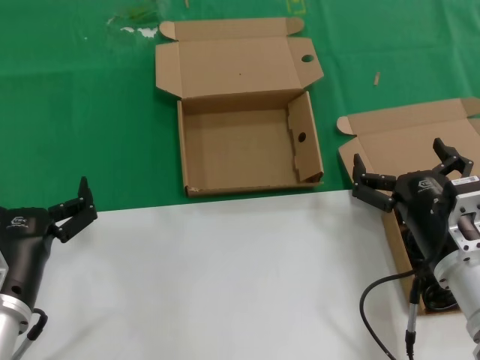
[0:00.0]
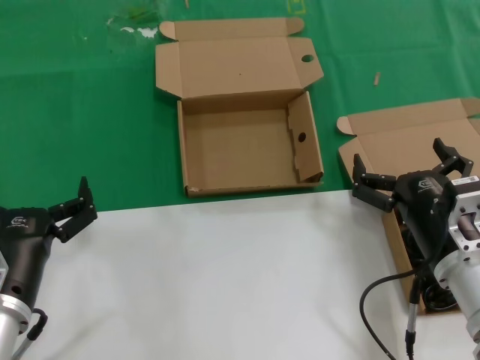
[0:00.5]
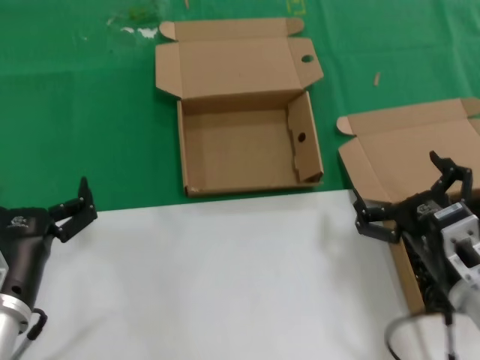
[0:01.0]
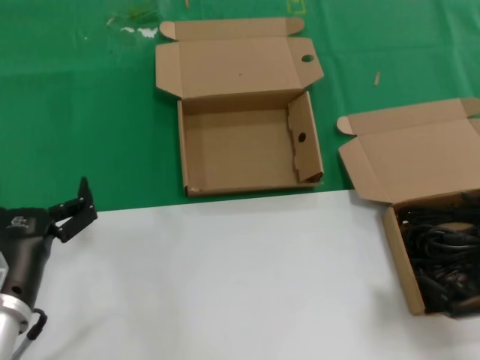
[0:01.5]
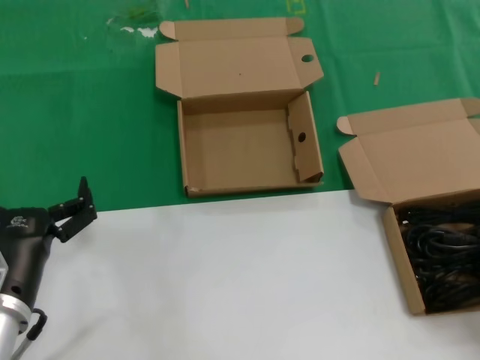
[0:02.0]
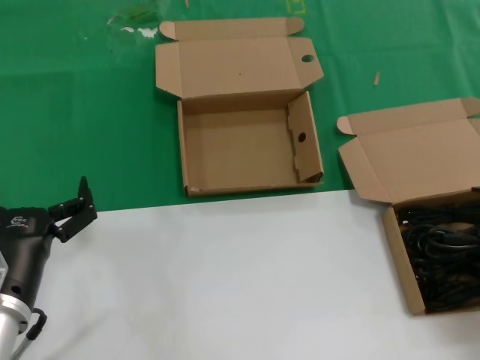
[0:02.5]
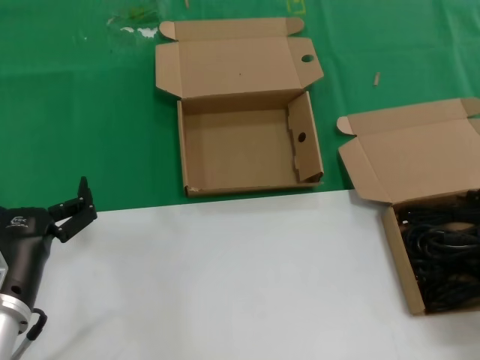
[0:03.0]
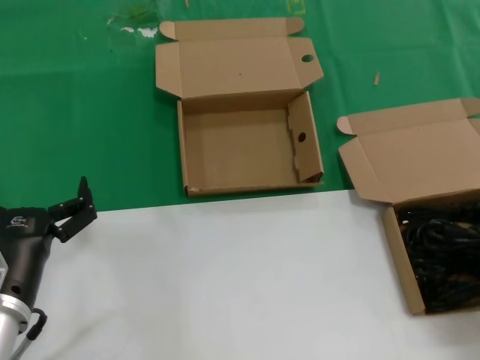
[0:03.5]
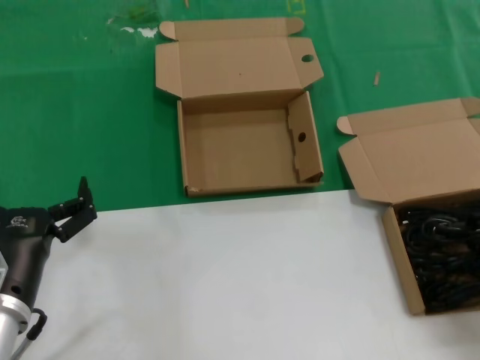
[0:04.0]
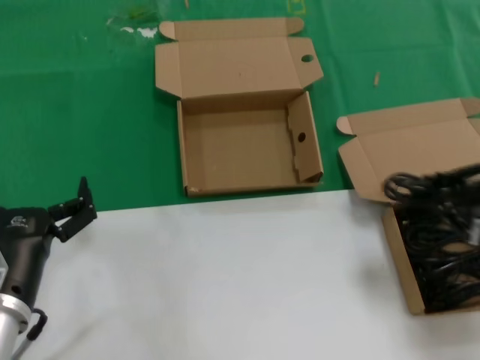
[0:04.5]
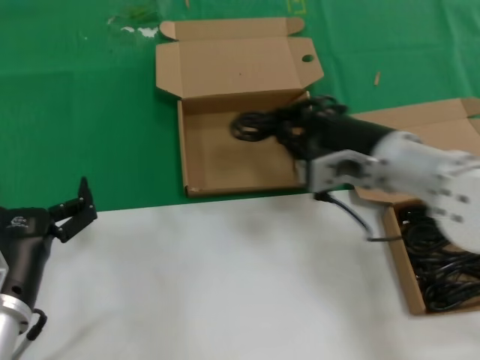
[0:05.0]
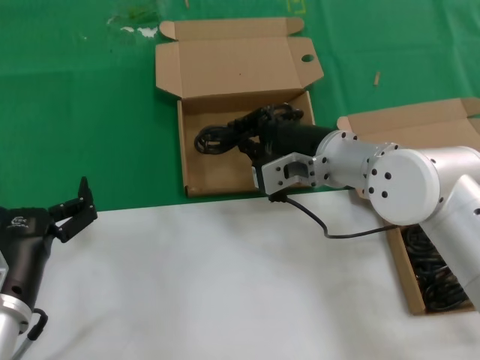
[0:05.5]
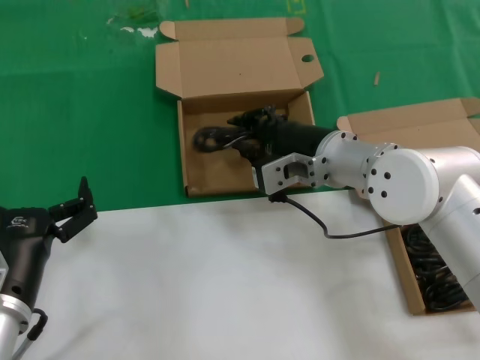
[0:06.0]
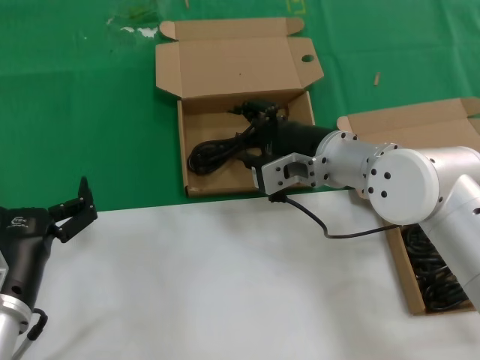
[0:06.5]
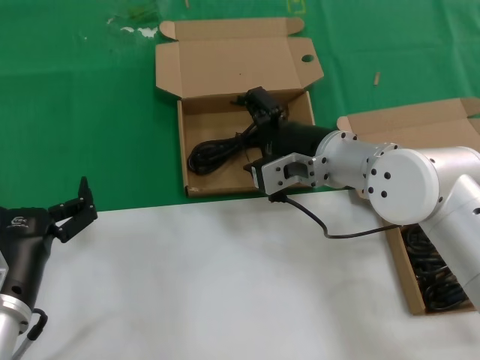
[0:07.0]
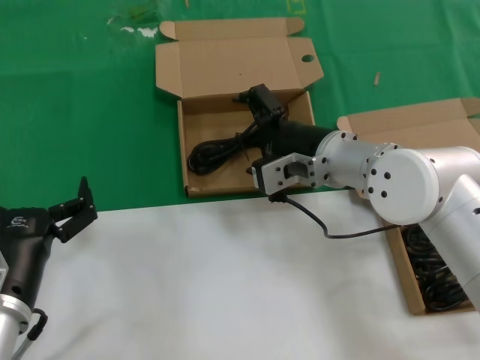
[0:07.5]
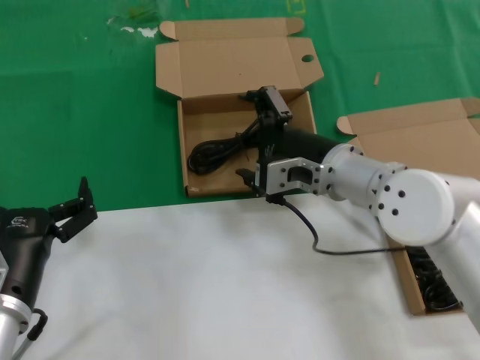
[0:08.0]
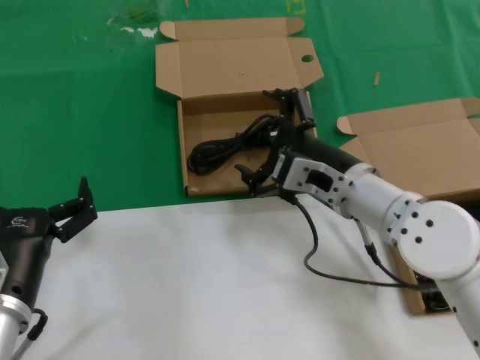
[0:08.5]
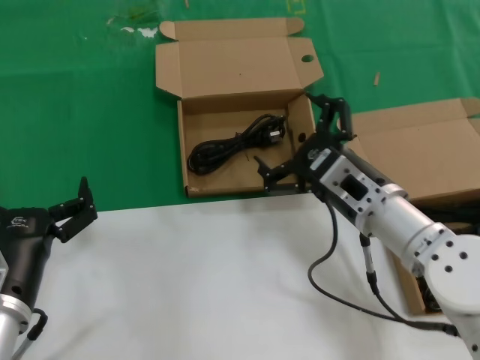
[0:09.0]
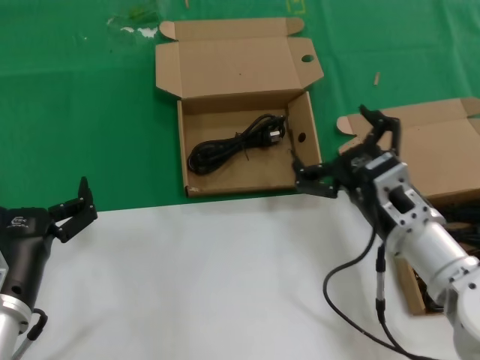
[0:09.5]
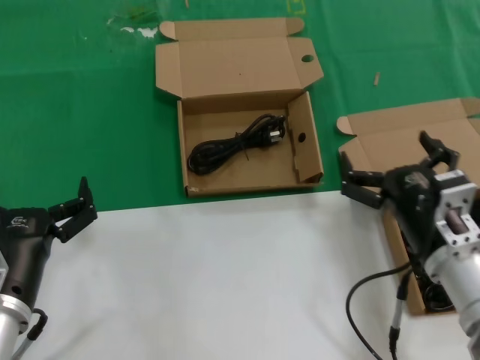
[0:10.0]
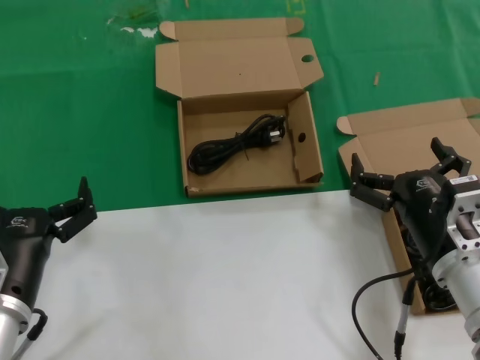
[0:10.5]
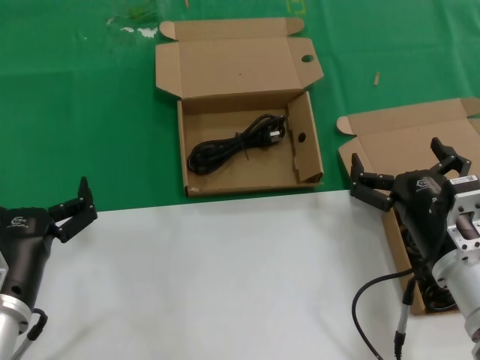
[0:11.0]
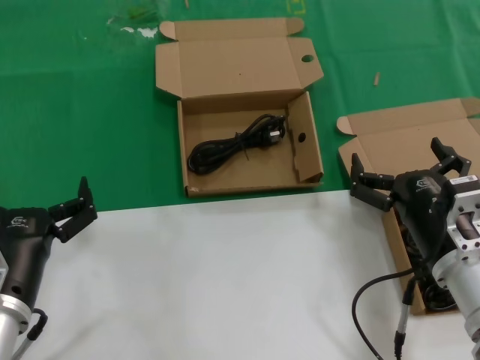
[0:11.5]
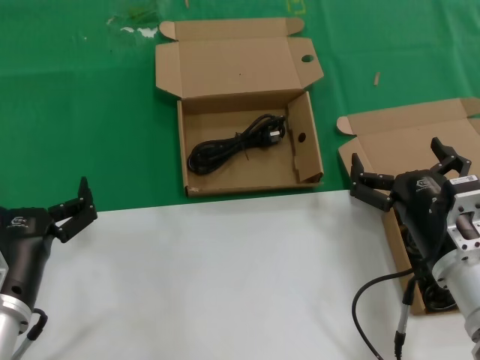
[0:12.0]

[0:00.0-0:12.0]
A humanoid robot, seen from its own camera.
Task of the whole recording: take the parts from the box containing them and put them into an empty box.
Step, 0:00.0 to 0:03.5: Grasp the data cable.
Step, 0:04.0 to 0:07.0: Place the data cable in the another box.
0:00.0 to 0:02.0: The right hand travels to the right and upward by about 20 cm.
0:04.0 to 0:06.0: The right hand goes roughly 30 cm to the left and forward.
0:06.0 to 0:08.0: The hands make only small movements.
0:08.0 to 0:10.0: The right hand travels backward, to the right and downward by approximately 15 cm.
0:10.0 to 0:12.0: Neither hand changes place.

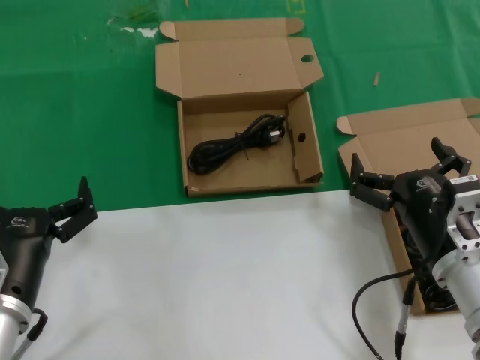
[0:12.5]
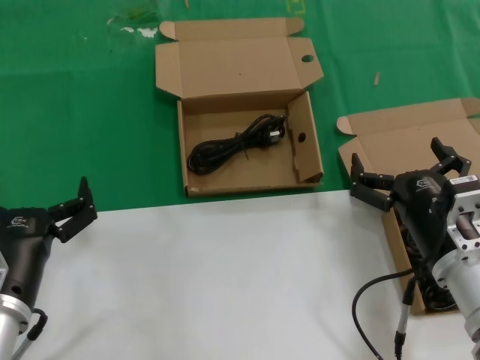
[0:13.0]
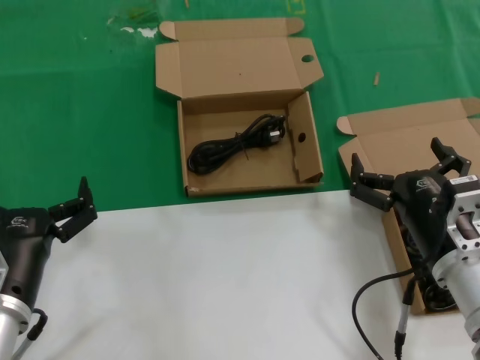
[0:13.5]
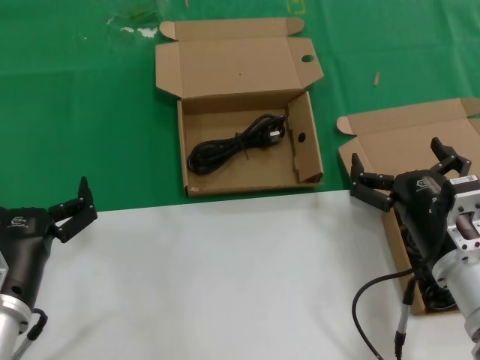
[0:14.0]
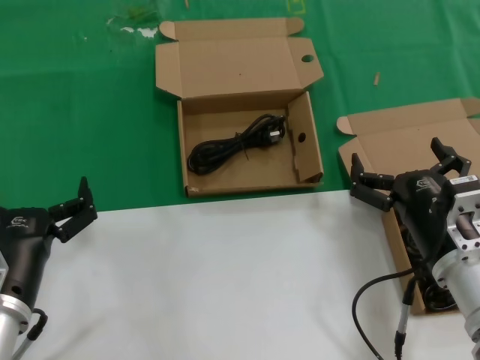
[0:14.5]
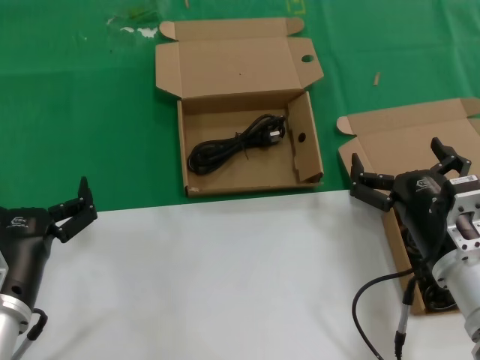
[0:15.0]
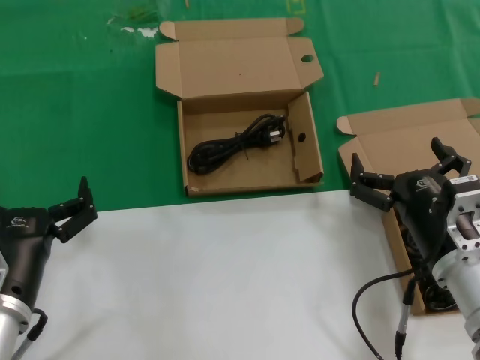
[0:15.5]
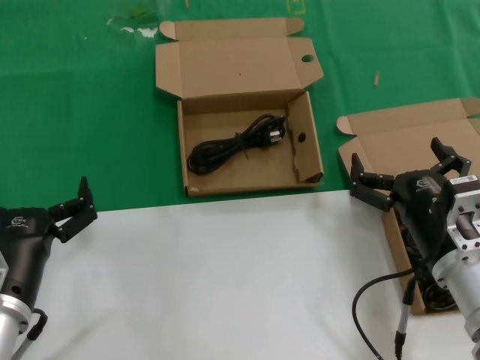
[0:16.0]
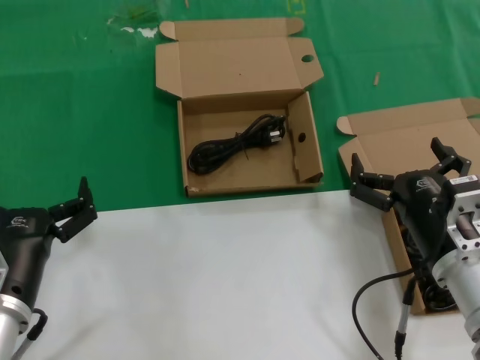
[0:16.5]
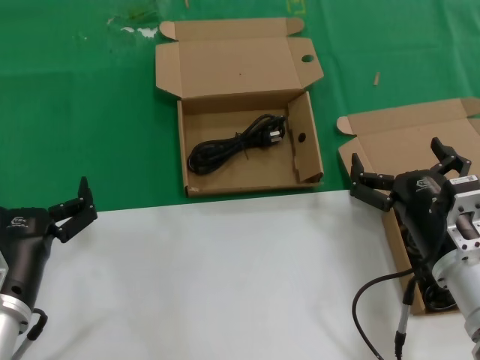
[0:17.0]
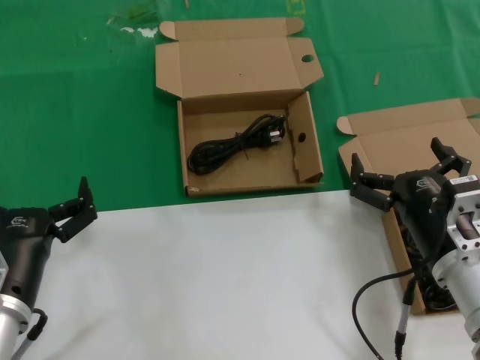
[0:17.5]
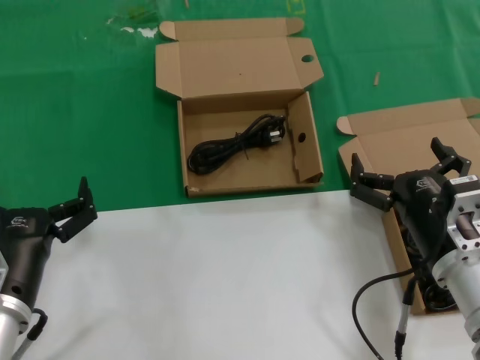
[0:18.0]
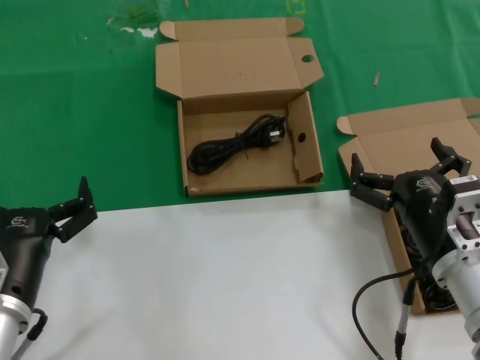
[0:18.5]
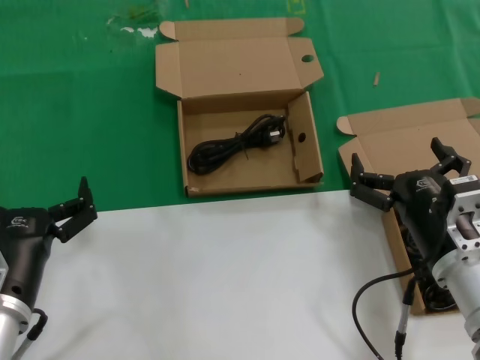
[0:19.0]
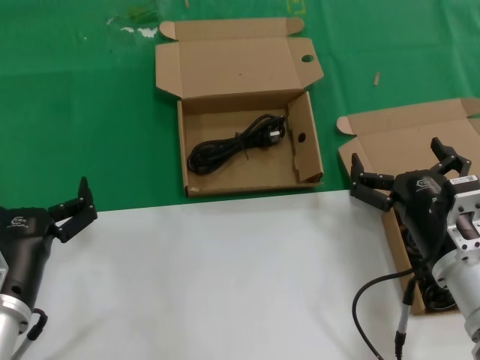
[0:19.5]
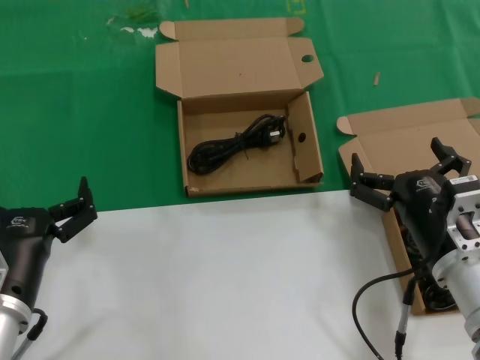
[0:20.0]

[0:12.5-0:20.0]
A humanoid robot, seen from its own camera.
Task of the whole recording: take the parts from the box containing them and put them into an empty box.
0:12.5 to 0:20.0: Neither hand changes place.

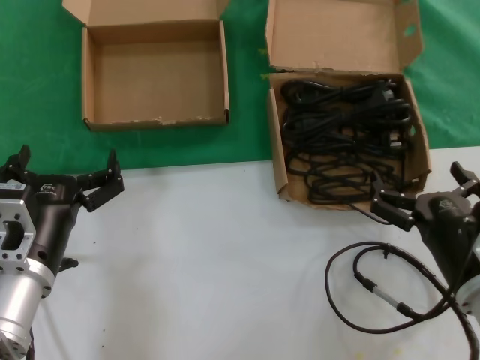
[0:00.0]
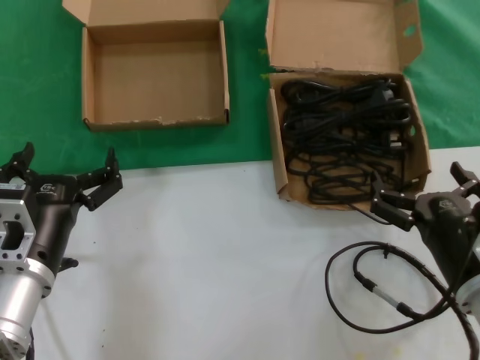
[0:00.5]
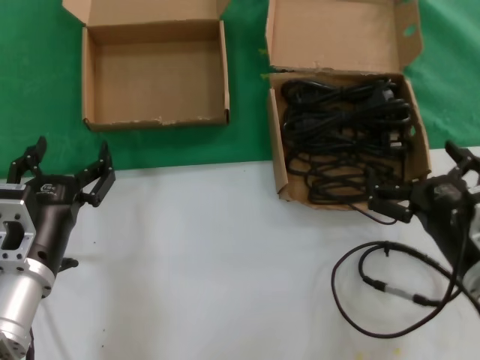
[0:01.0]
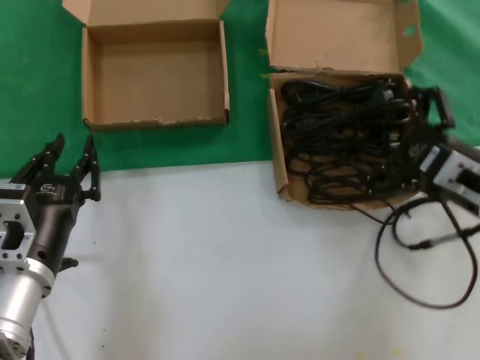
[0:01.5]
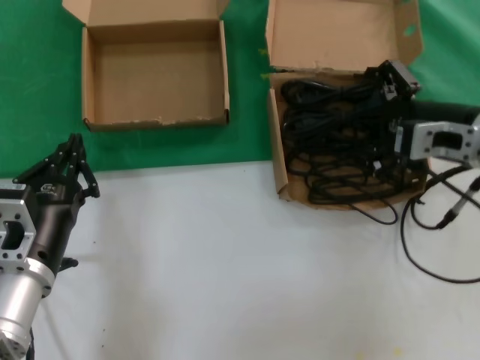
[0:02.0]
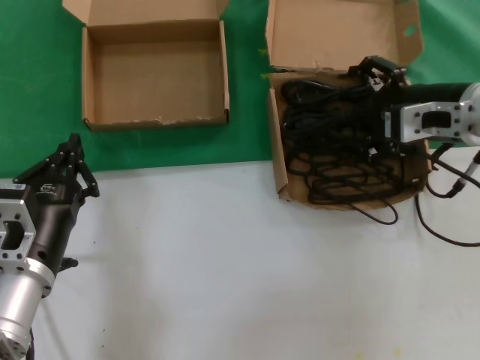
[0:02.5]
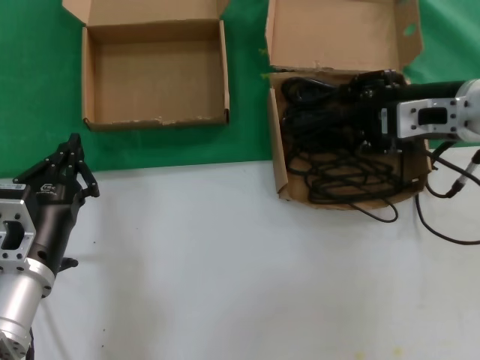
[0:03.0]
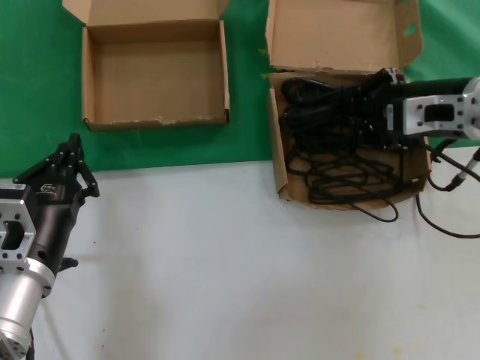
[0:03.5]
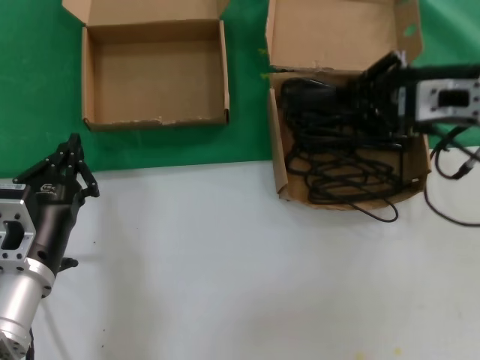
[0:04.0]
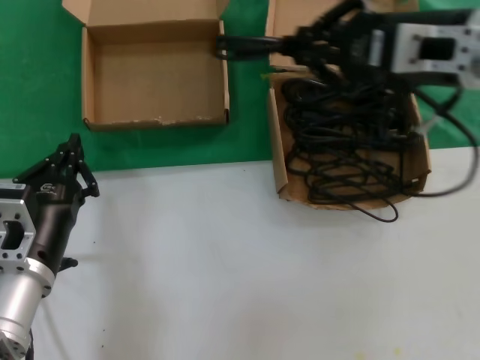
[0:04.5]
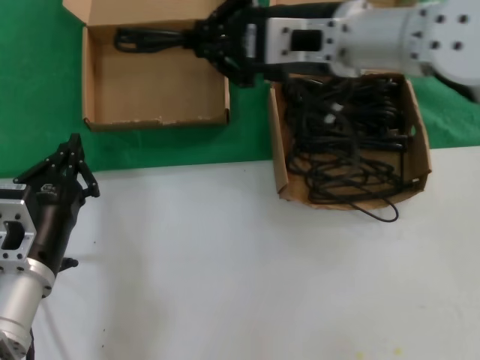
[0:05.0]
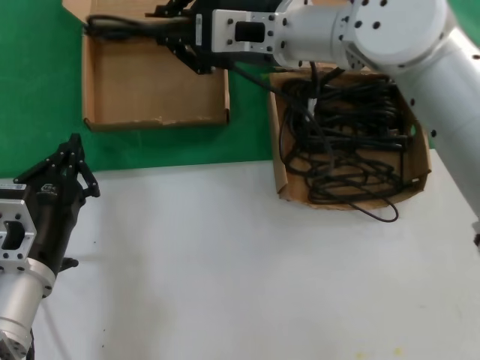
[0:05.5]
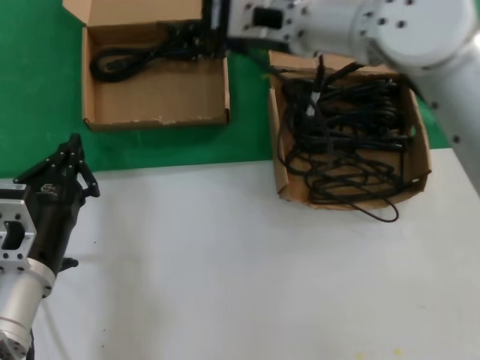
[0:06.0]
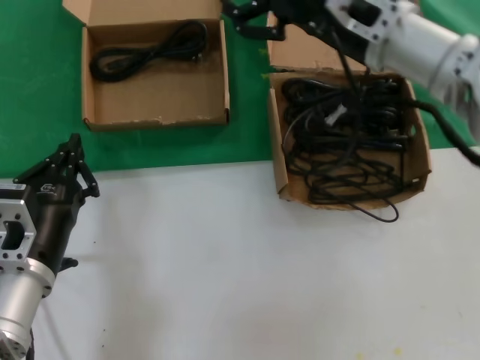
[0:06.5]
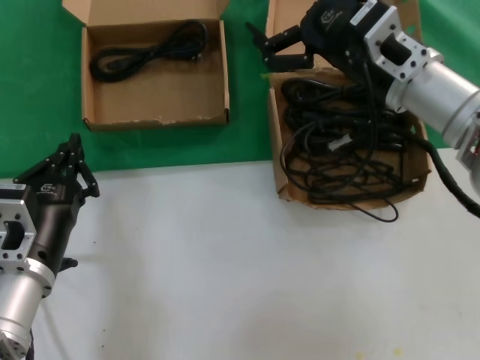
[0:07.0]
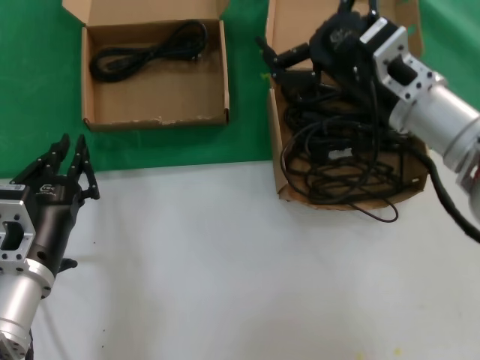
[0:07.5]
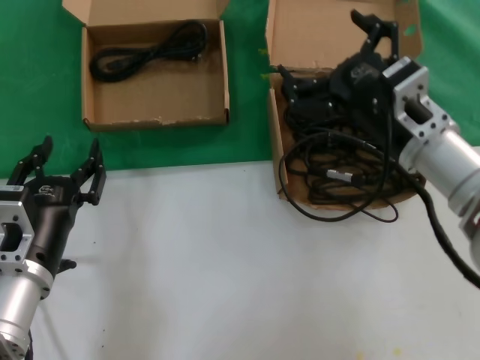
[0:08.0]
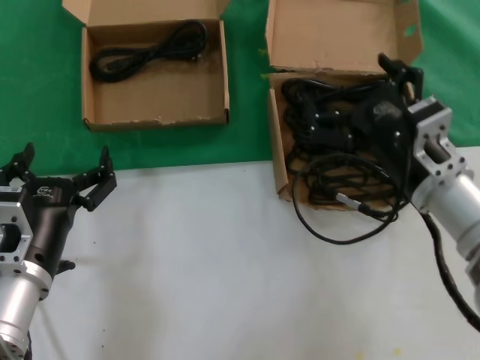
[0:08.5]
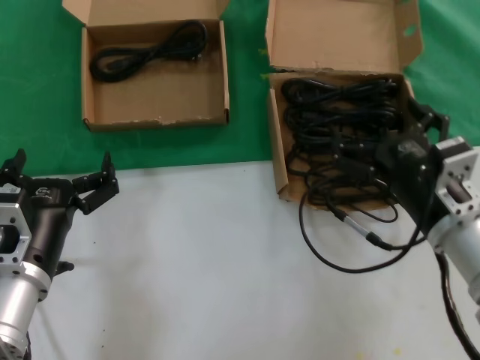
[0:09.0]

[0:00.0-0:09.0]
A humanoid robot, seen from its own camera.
Task of the whole recording: take the parts from the box containing them and put them into an empty box.
Step, 0:00.0 to 0:03.5: Grasp the data cable.
Step, 0:04.0 to 0:05.5: Place the data cable in the another box.
0:00.0 to 0:02.0: The right hand is displaced upward and forward by roughly 20 cm.
0:02.0 to 0:04.5: The right hand is displaced upward and to the left by approximately 15 cm.
0:04.5 to 0:07.0: The right hand goes about 10 cm downward, and moves roughly 15 cm to the left and comes back.
0:07.0 to 0:09.0: The right hand is displaced downward and backward by some 15 cm.
